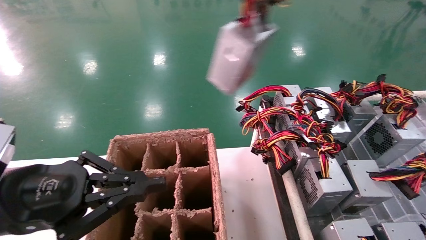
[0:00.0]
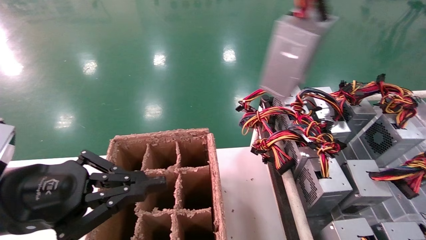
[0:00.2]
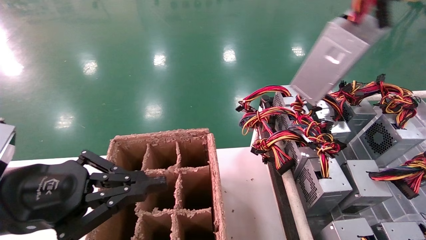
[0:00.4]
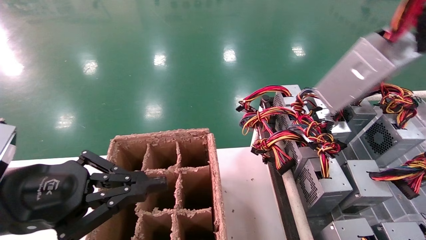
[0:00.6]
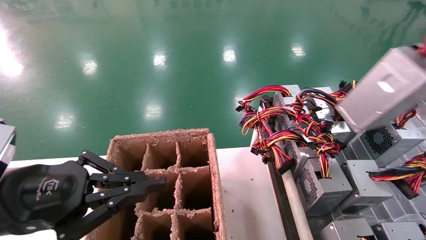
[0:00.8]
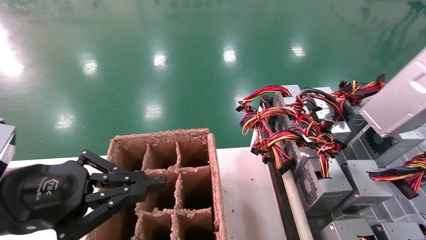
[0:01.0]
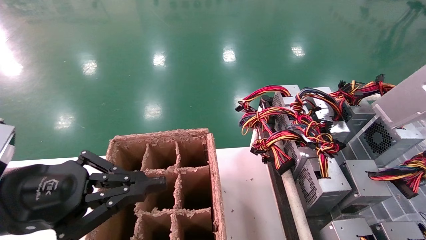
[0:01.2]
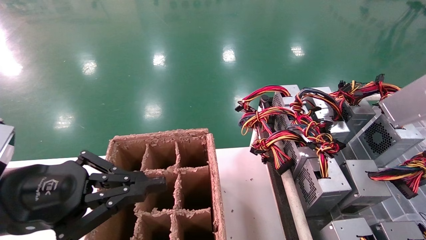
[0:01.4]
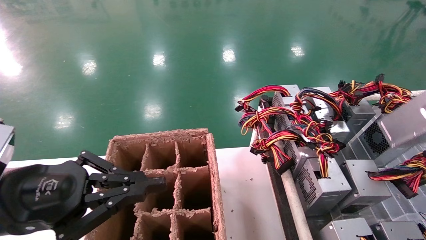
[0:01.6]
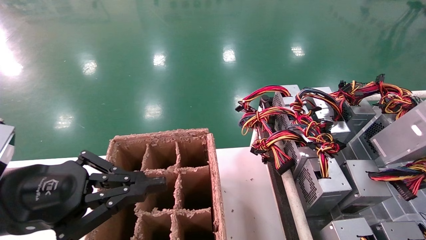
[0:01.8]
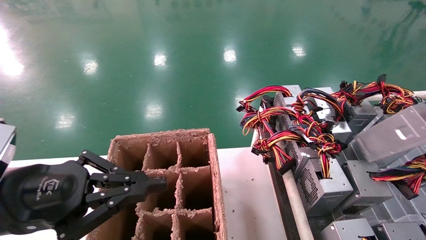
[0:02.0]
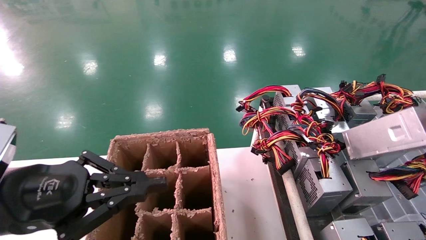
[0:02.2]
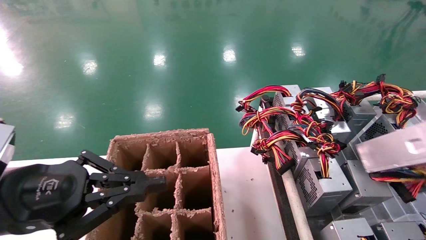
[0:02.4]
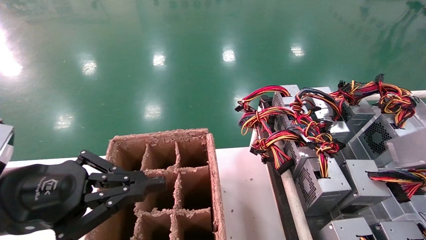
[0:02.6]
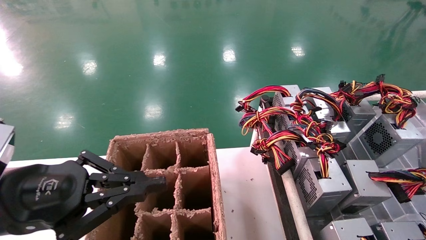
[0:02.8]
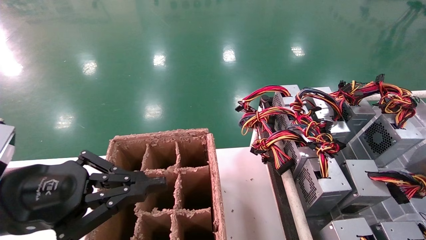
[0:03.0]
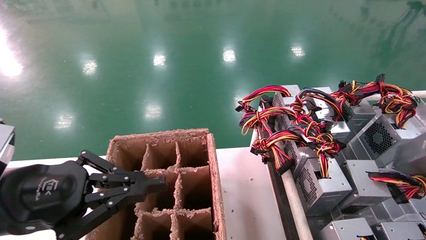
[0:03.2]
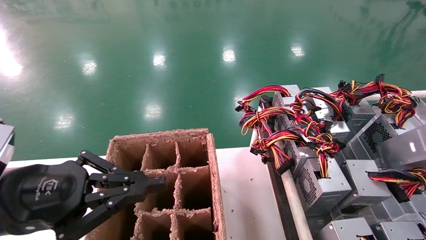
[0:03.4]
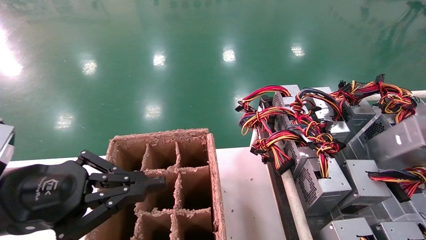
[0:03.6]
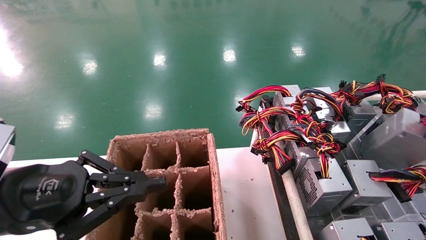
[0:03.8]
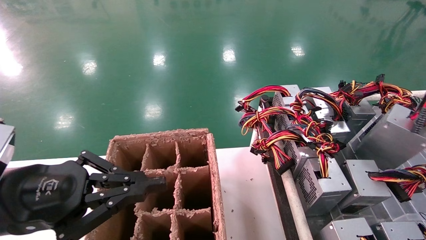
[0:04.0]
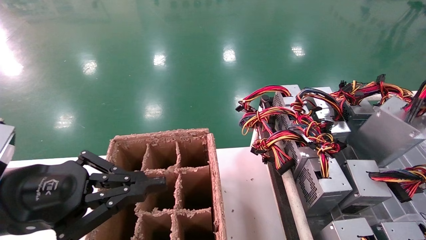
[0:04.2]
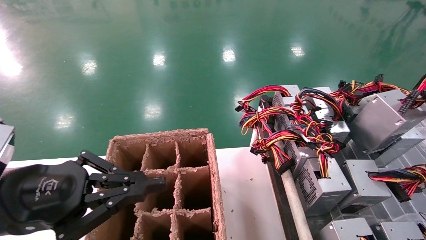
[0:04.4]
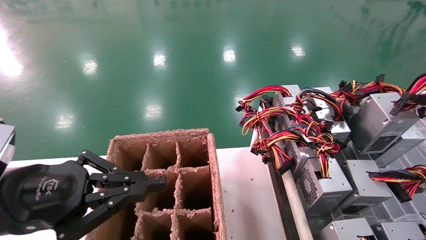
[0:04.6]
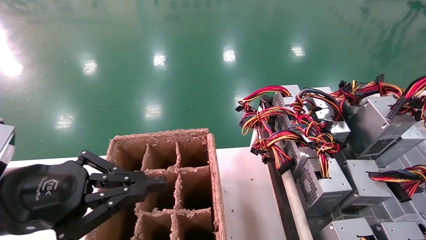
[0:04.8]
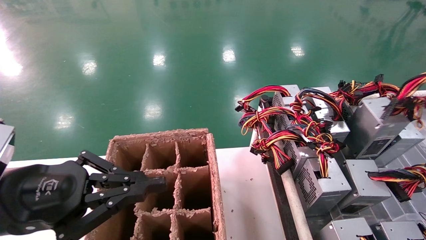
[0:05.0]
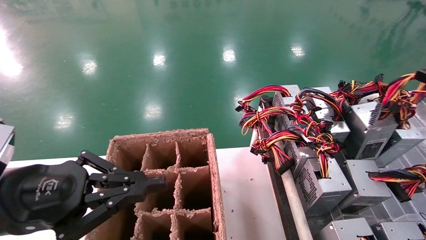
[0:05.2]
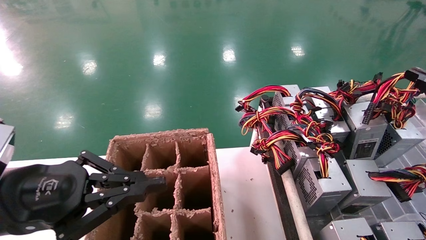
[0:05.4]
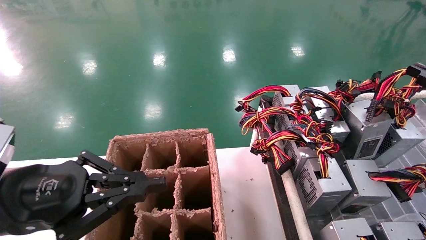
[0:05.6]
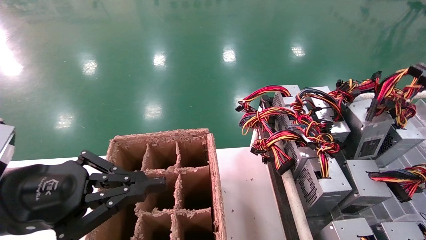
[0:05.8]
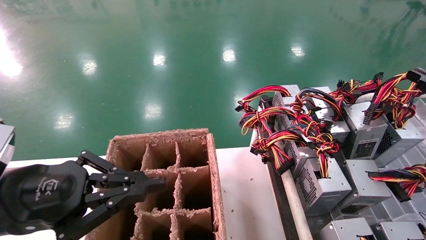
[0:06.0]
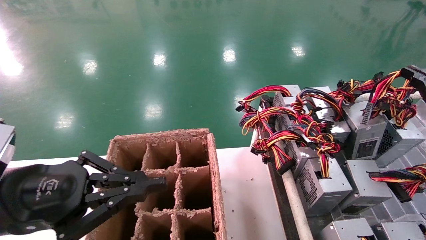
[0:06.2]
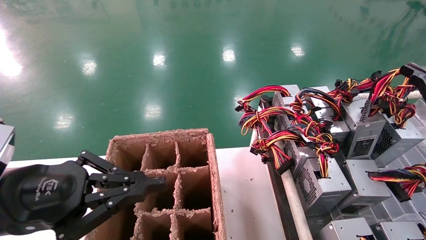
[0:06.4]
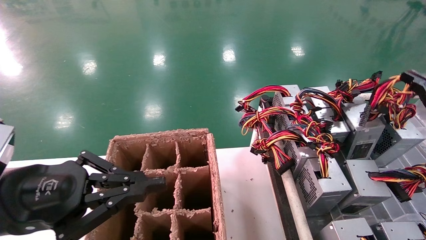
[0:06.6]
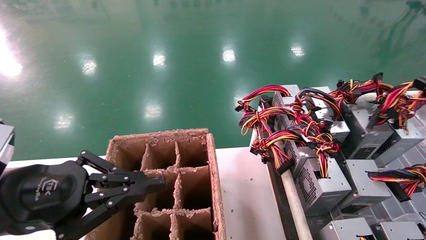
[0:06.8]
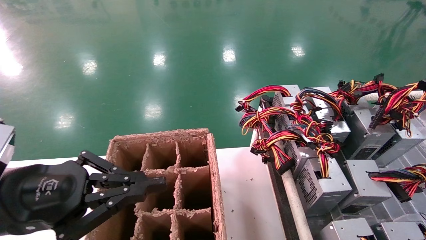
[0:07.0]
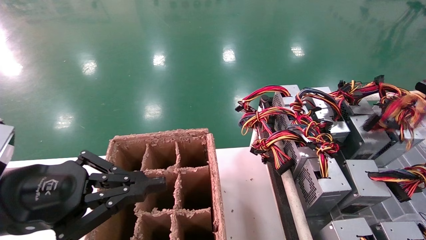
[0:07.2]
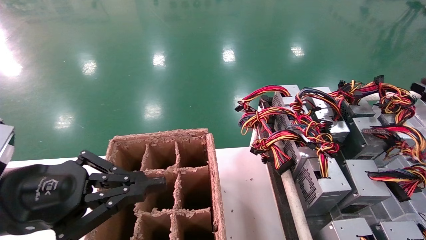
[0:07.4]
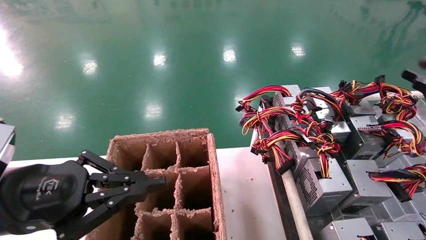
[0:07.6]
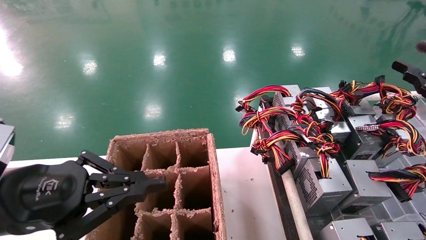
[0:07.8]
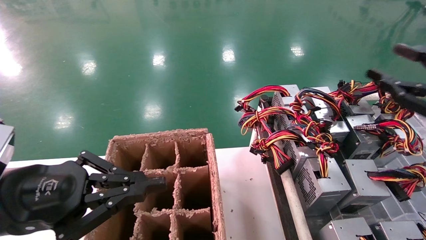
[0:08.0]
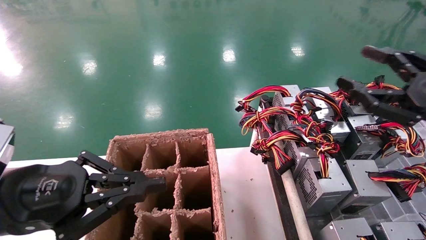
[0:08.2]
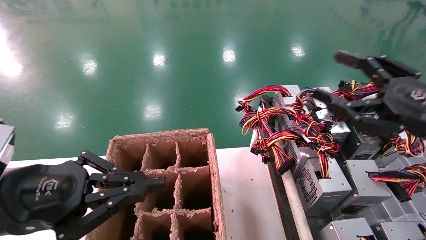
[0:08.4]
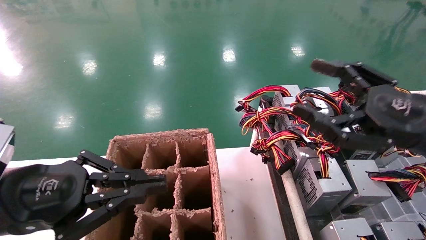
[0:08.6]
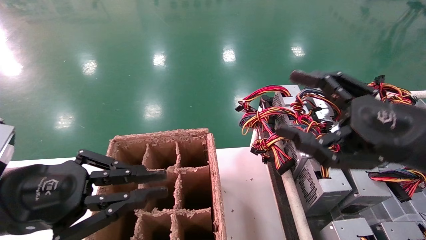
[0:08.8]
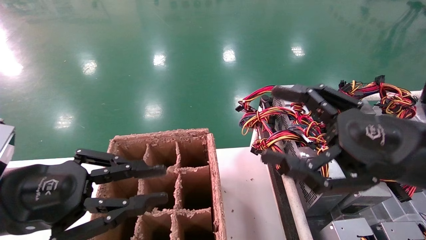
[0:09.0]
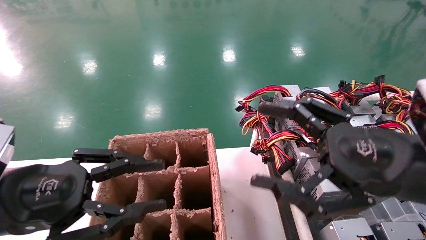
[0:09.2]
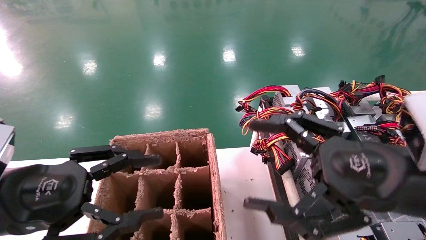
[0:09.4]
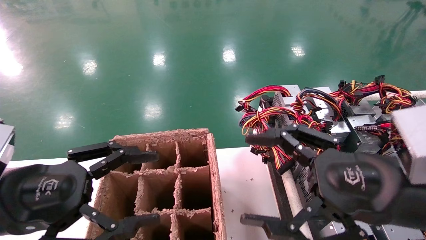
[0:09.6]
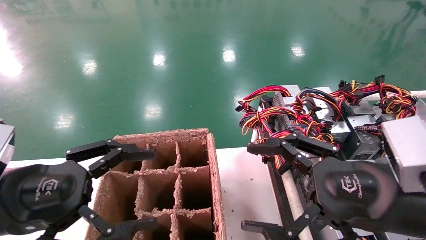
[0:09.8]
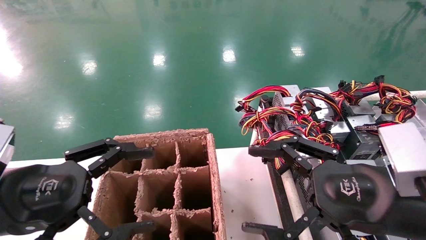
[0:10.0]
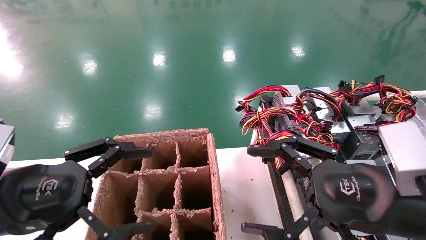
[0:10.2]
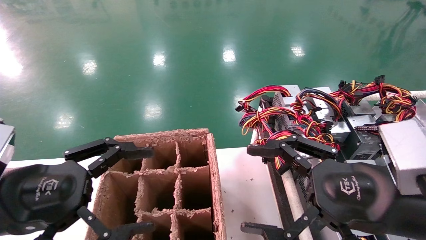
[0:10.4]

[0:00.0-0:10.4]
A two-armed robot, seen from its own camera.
Step, 0:00.0 to 0:07.4: Place the main unit power supply in the designated area.
0:00.0 to 0:01.4: The right gripper goes some 30 cm to the right, downward and backward.
0:01.4 to 0:03.0: The right gripper shifts some 15 cm downward and to the right.
0:03.0 to 0:04.4: The right gripper shifts some 15 cm forward.
0:04.4 to 0:06.0: The right gripper is displaced forward by about 10 cm.
0:06.0 to 0:07.4: The grippers move only a little.
0:07.4 to 0:09.0: The right gripper is displaced to the left by about 25 cm, and opens its fingers.
0:09.0 to 0:10.4: The left gripper opens its fingers.
